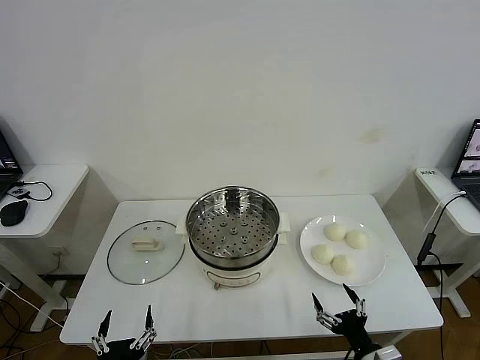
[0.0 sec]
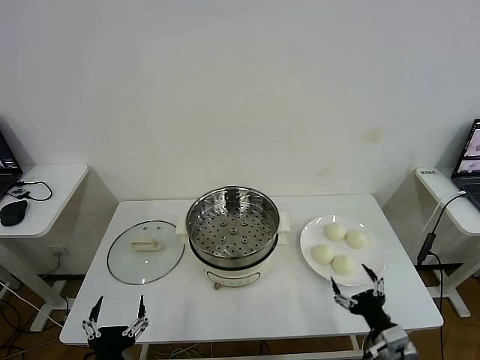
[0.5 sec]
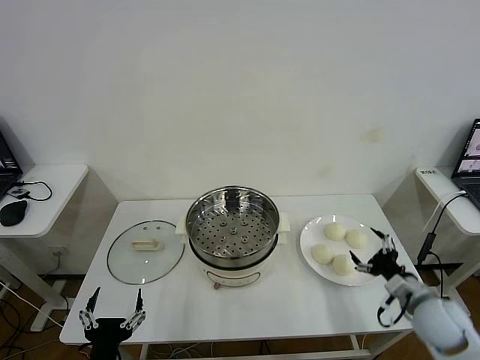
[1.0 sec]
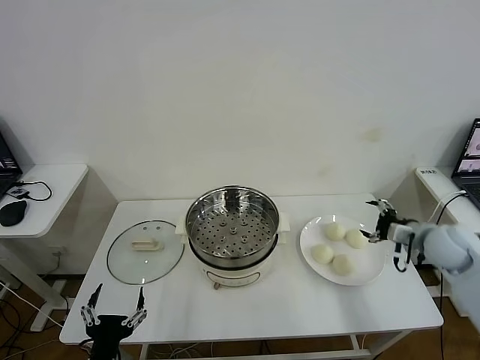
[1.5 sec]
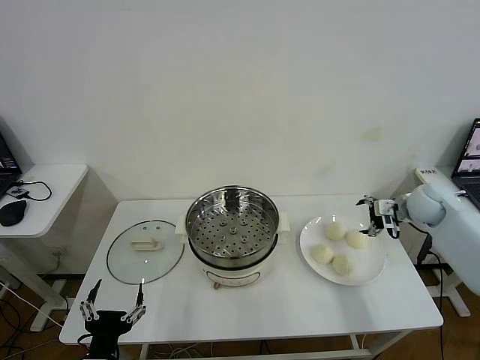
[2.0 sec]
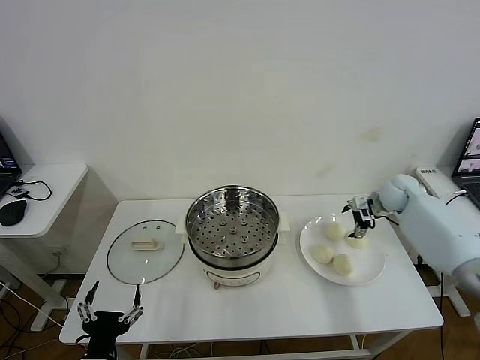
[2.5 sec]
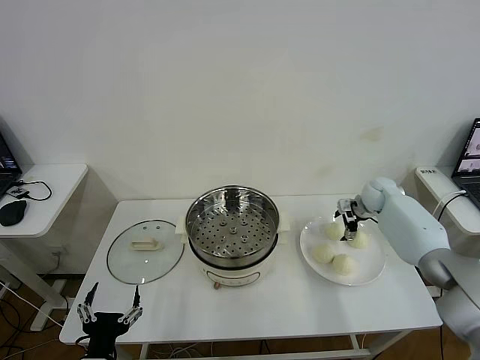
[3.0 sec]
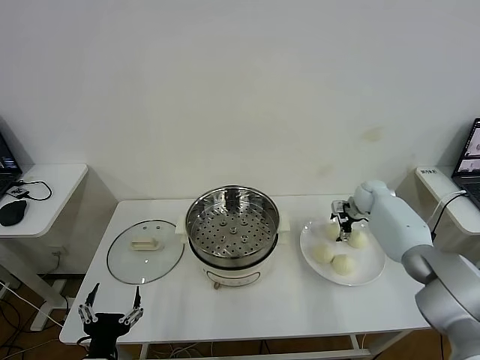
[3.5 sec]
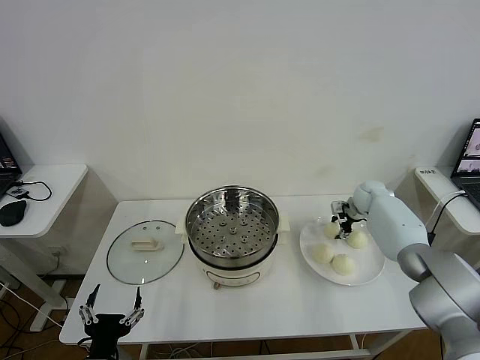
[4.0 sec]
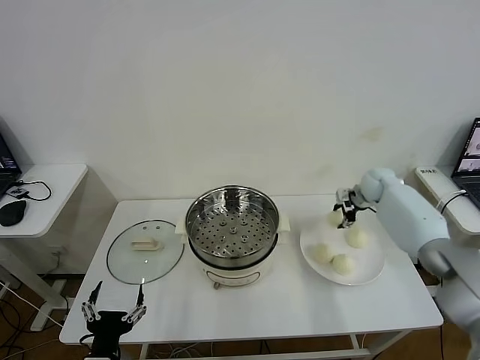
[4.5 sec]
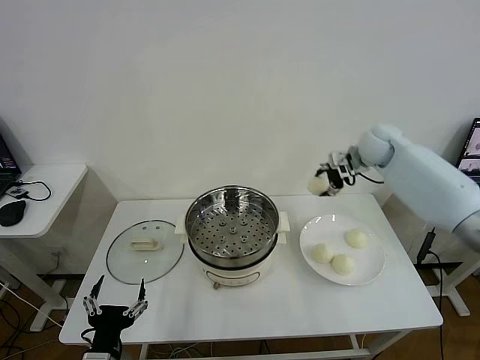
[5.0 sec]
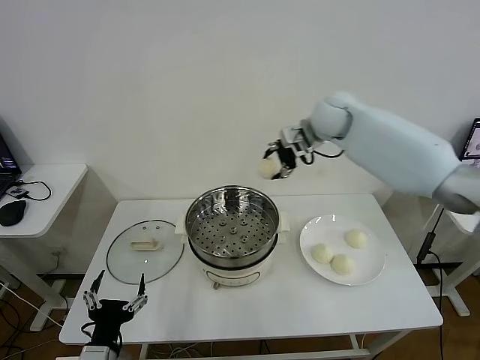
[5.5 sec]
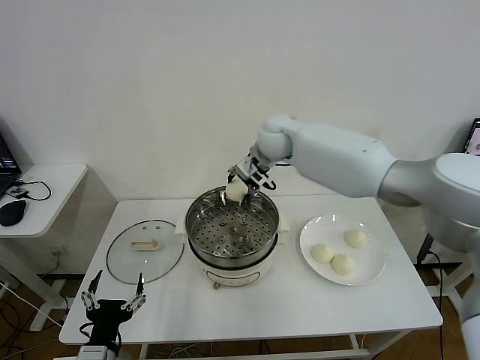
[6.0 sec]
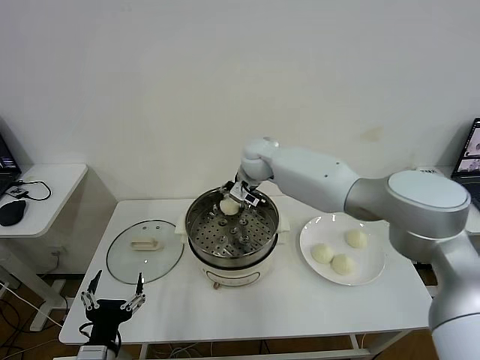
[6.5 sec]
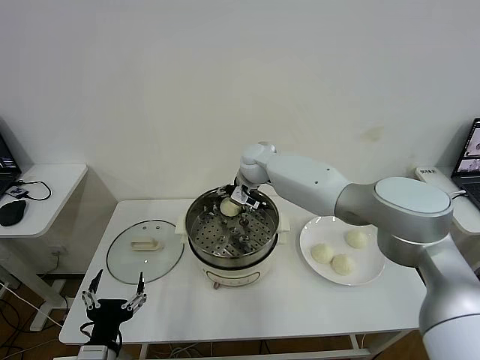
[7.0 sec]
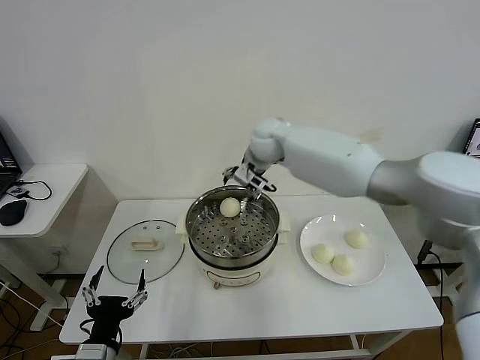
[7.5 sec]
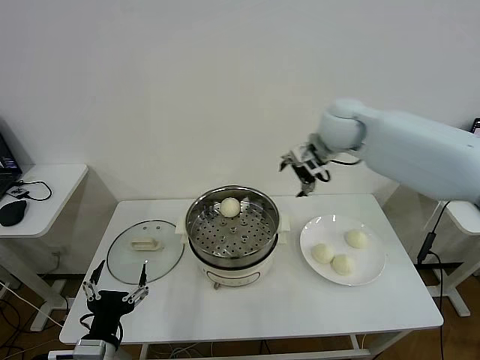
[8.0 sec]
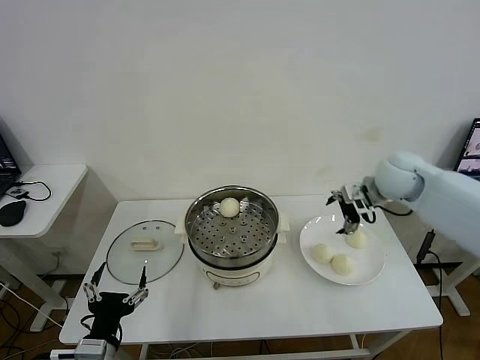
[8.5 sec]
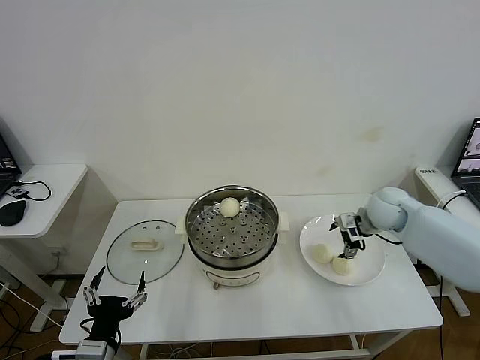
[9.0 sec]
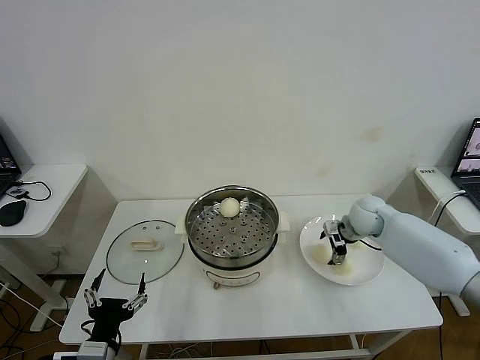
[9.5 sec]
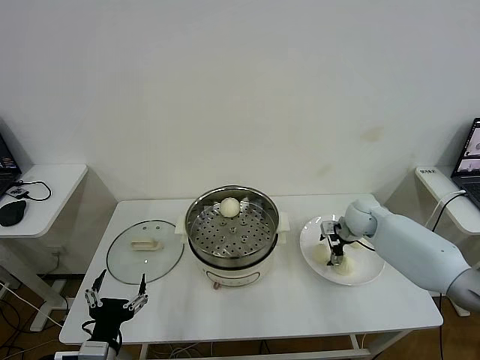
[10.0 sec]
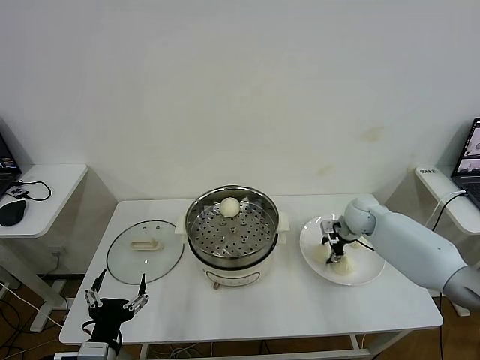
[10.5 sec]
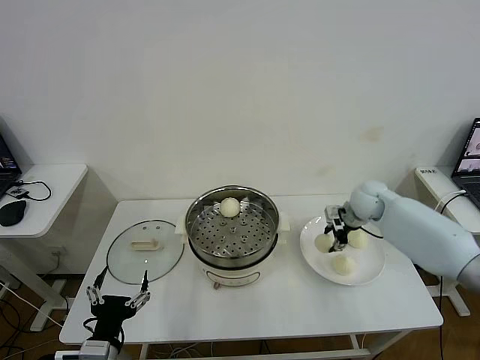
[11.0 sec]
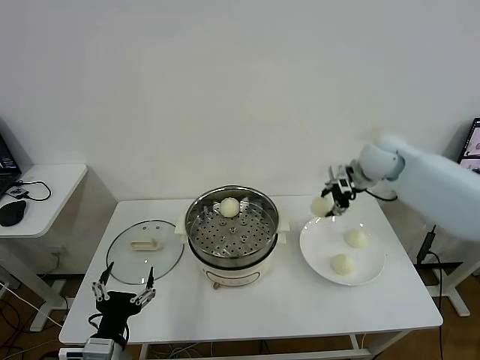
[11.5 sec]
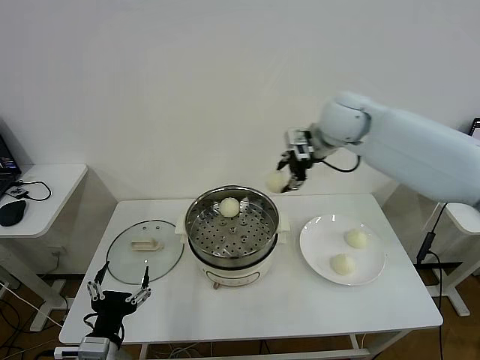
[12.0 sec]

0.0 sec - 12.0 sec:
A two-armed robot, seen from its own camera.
Task of the whole recording: take steamed baozi put them in steamer then cover it.
Step, 0.0 sec - 4.0 sec: Grasp the baozi in the plate with right gripper.
Step, 4.5 sec - 7.0 sec: Place the baozi on the steamer with right gripper.
Step, 7.5 sec - 10.5 sec: Grasp the baozi in the plate with right gripper.
2.0 sec - 4.0 sec: The right gripper goes roughly 15 cm forward, downward and to the left, and closes its fingers.
4.0 sec - 6.0 sec: The right gripper heads to the left and upward, covering approximately 35 cm.
6.0 sec - 8.0 sec: The right gripper travels to the right by approximately 20 cm, and opens up.
8.0 sec - 10.0 sec: The right gripper heads downward, covering some 25 cm.
10.0 sec - 12.0 sec: The right gripper goes roughly 30 cm upward and to the left, and closes up.

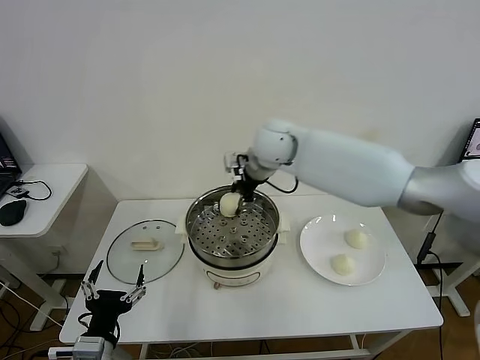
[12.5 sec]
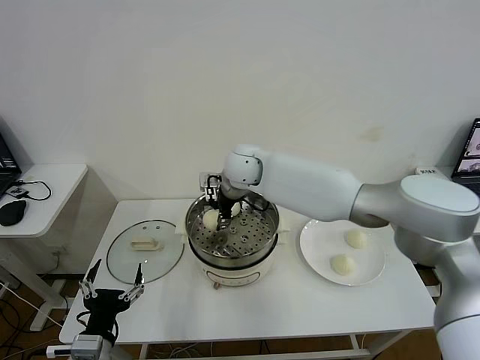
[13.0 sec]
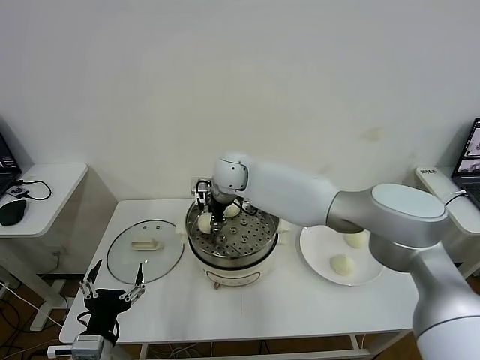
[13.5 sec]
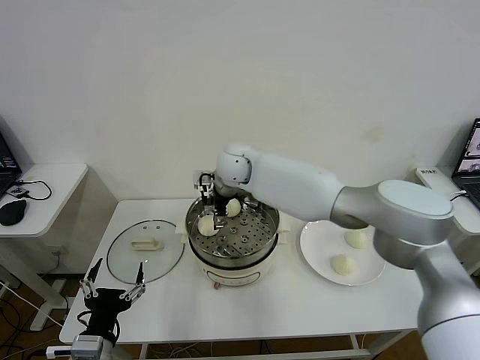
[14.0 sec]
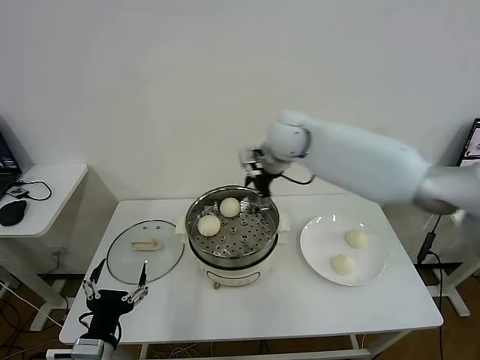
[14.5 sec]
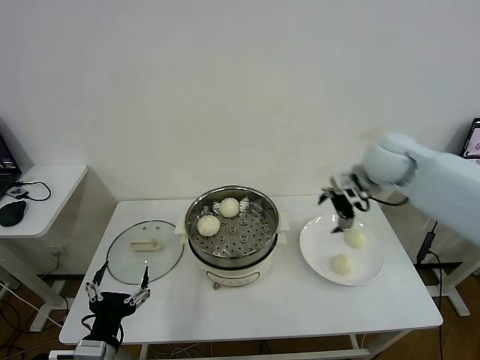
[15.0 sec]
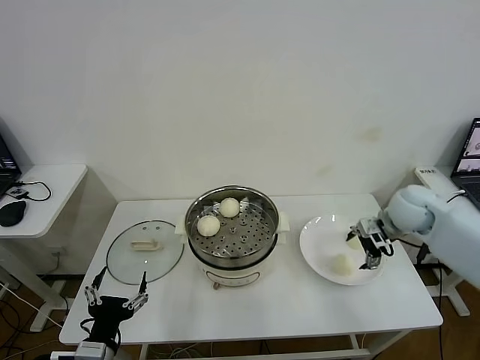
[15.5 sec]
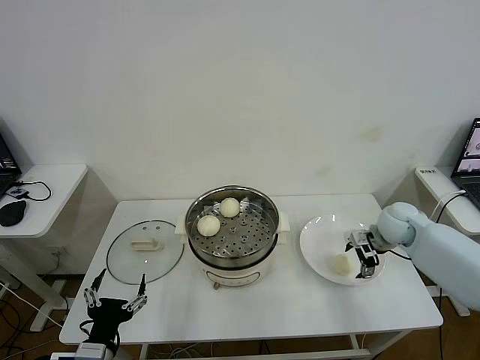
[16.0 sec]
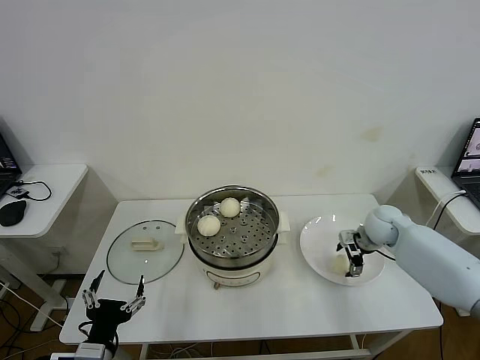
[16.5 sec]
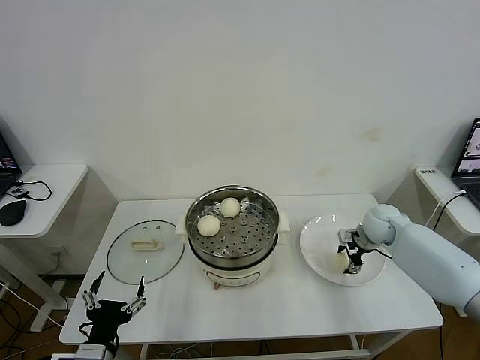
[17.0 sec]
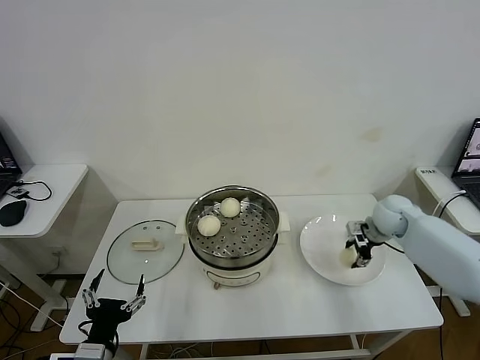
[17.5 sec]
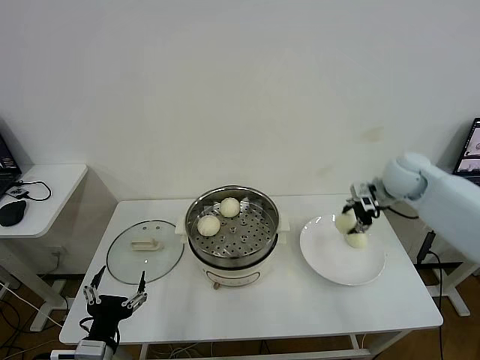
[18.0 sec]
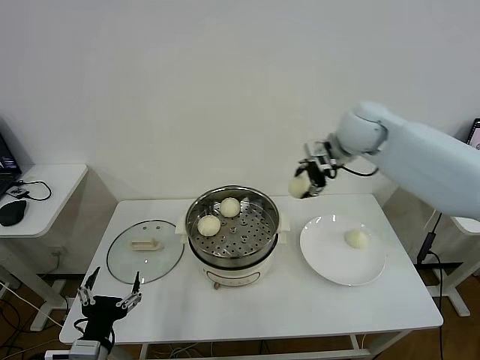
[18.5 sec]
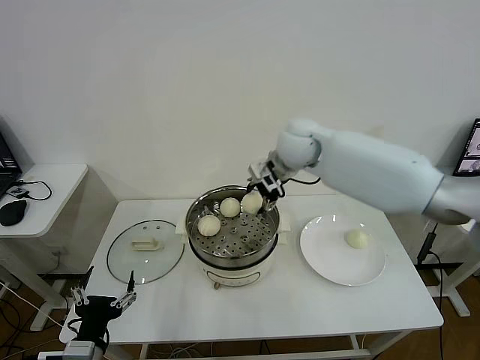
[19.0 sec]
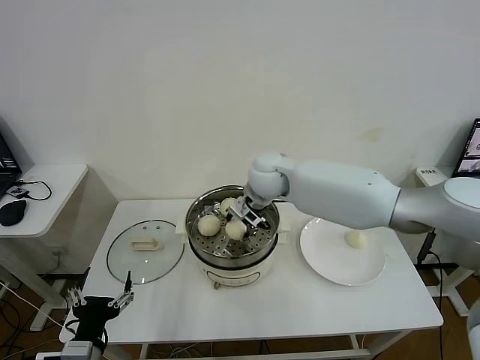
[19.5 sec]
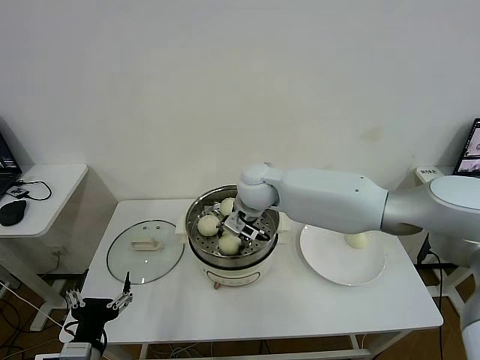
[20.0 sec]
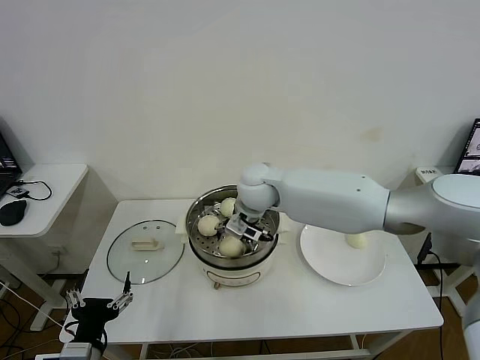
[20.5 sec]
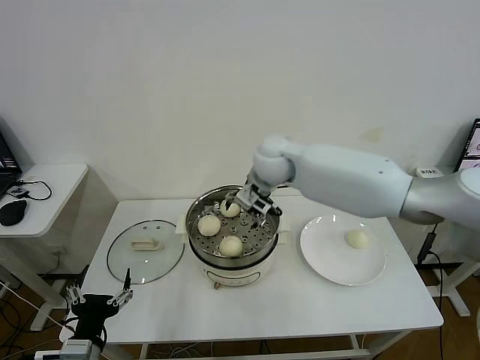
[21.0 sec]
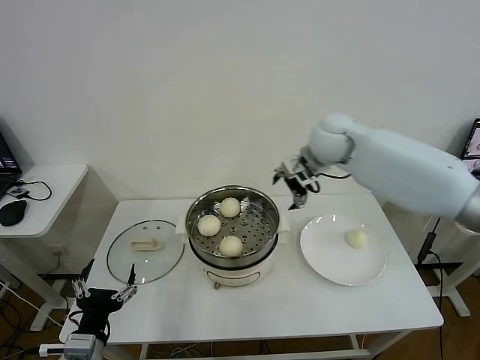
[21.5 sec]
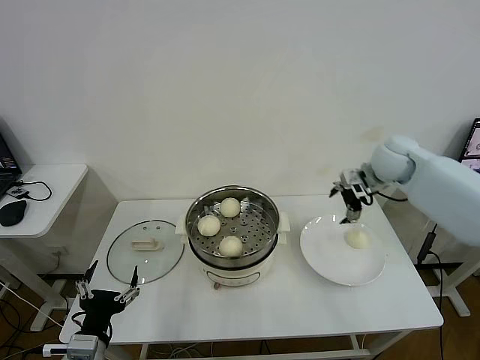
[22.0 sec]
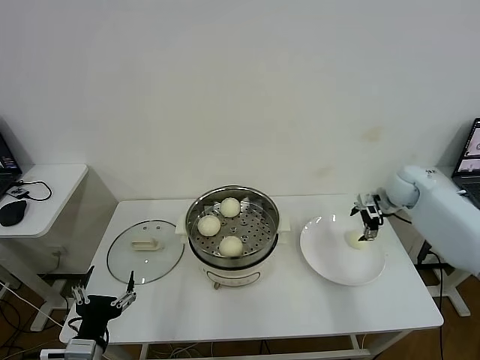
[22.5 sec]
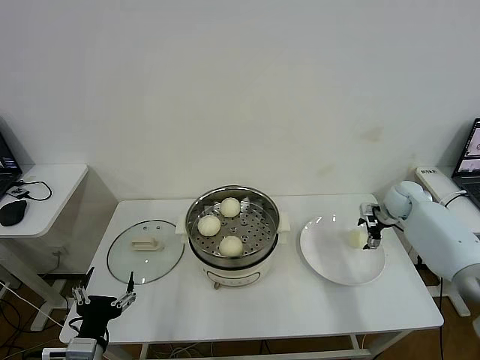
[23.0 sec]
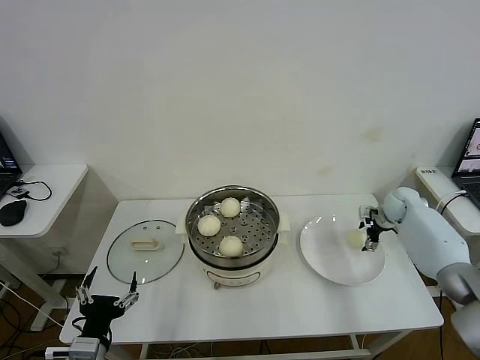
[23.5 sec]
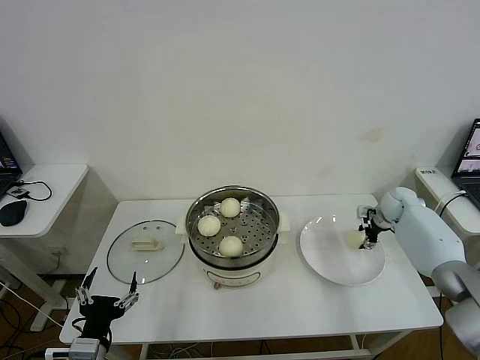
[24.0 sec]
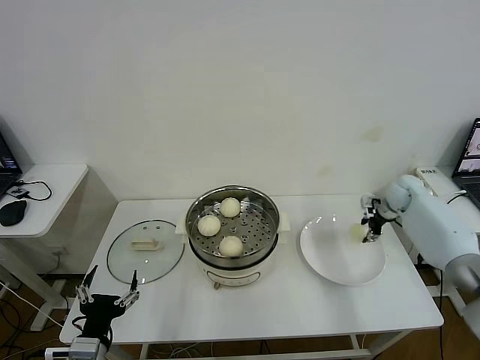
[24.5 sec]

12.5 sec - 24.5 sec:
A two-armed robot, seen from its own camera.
Task of the whole recording: take steamed baozi put them in steamer then cover it.
Step, 14.5 sec - 17.0 sec: Grasp the baozi in the plate with right gripper.
Step, 17.5 sec - 20.5 sec: Place the baozi on the steamer with right gripper.
Step, 21.0 sec - 24.0 sec: Grasp the baozi in the plate with right gripper.
12.5 sec - 14.5 sec: The right gripper goes some 10 cm to the right, and opens.
14.5 sec - 16.5 sec: The right gripper is displaced downward and to the right by about 35 cm.
16.5 sec - 18.5 sec: The right gripper heads upward and to the left, covering approximately 30 cm, and closes.
18.5 sec - 20.5 sec: The right gripper shifts approximately 20 cm to the left and downward, and opens up.
20.5 sec - 22.5 sec: The right gripper goes roughly 40 cm to the right.
22.5 sec - 24.5 sec: The right gripper closes up.

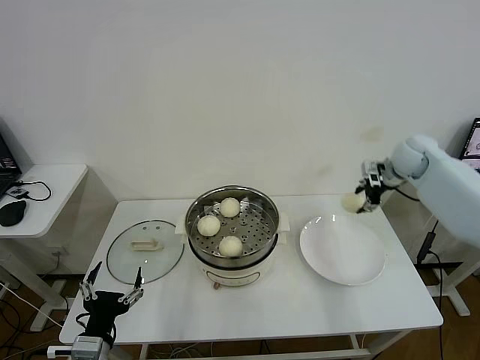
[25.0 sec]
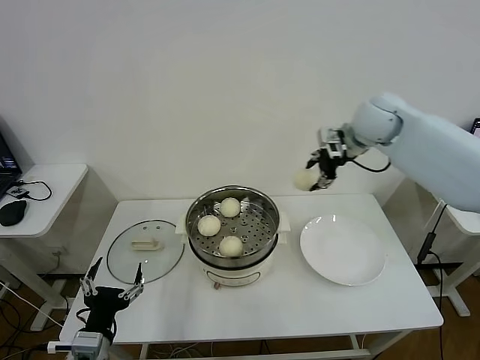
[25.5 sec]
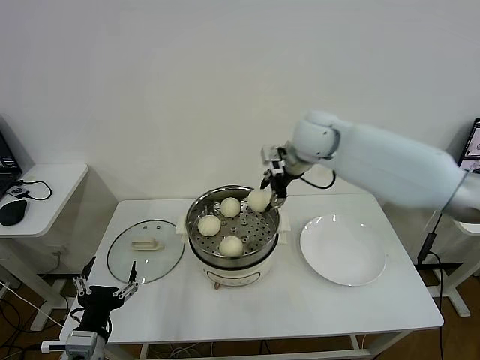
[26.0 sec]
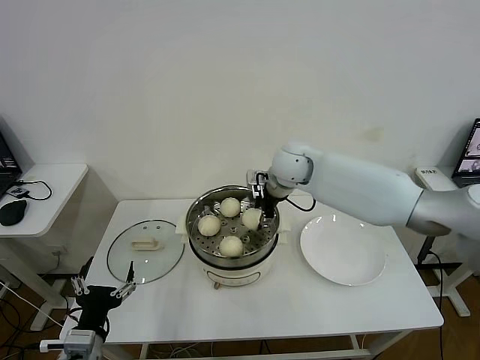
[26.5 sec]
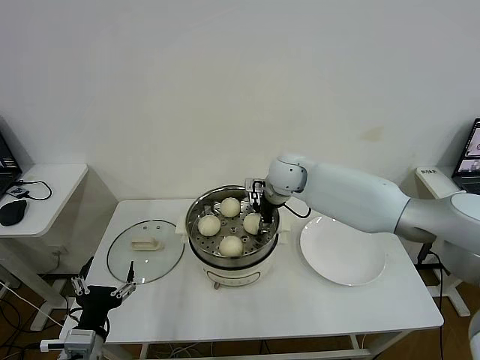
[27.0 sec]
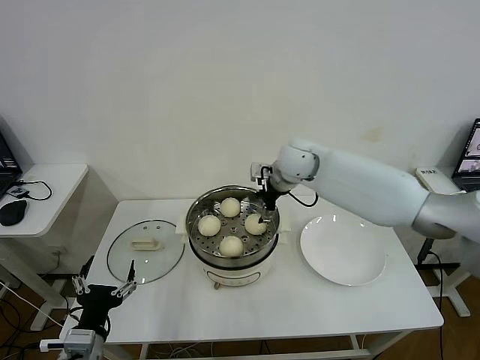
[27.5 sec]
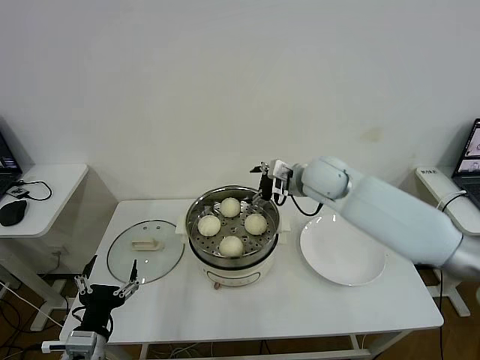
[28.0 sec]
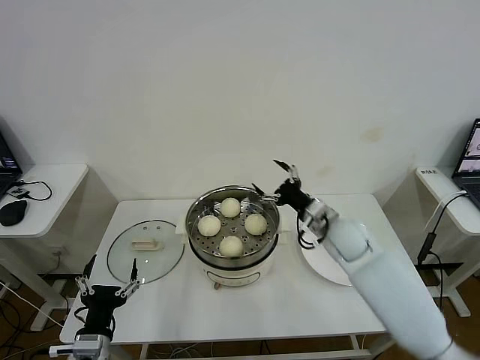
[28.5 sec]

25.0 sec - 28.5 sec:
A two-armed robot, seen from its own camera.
Task of the whole recording: take steamed baozi put them in steamer then cover it.
Step, 25.0 sec - 27.0 sec: Place the baozi on the steamer with right gripper.
25.0 sec - 27.0 sec: The right gripper heads to the left, covering roughly 30 cm.
27.0 sec - 28.5 sec: The right gripper goes some 20 cm to the right, backward and downward, and opens its fingers.
